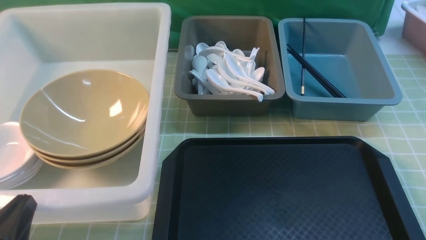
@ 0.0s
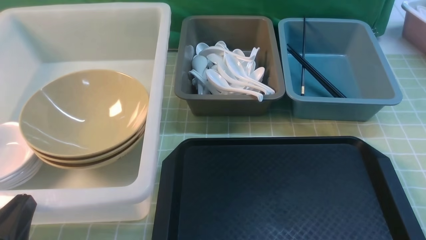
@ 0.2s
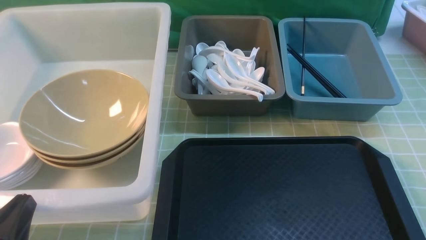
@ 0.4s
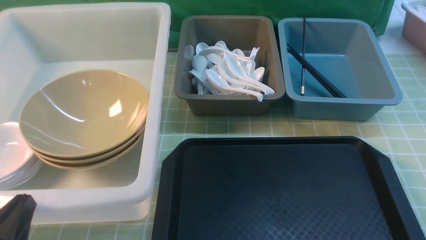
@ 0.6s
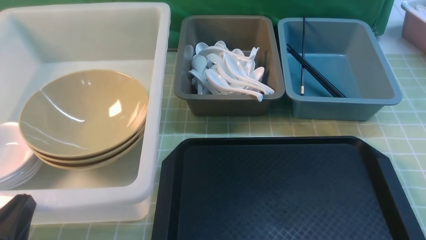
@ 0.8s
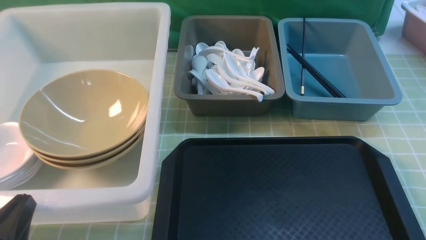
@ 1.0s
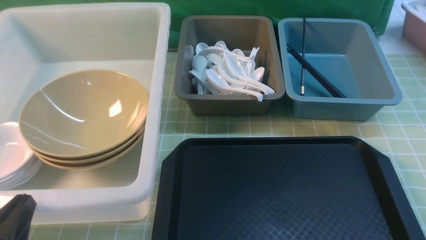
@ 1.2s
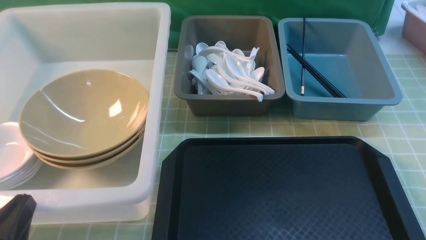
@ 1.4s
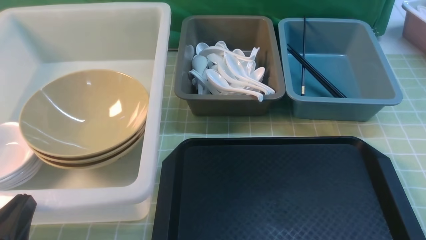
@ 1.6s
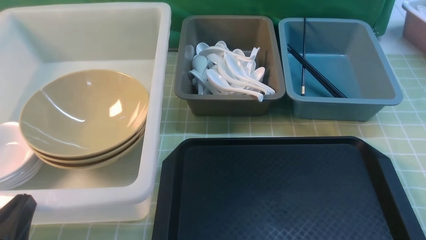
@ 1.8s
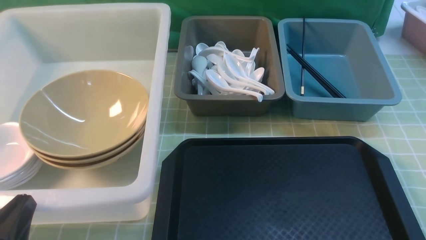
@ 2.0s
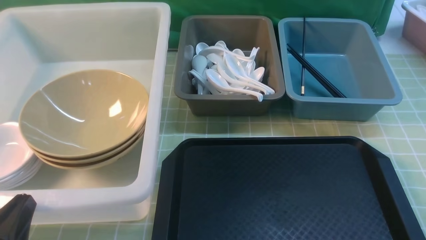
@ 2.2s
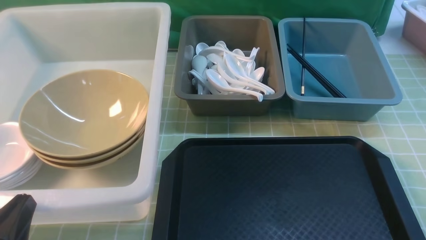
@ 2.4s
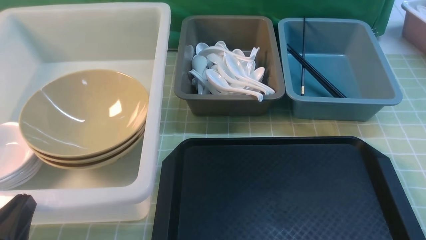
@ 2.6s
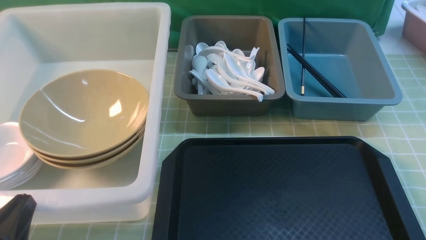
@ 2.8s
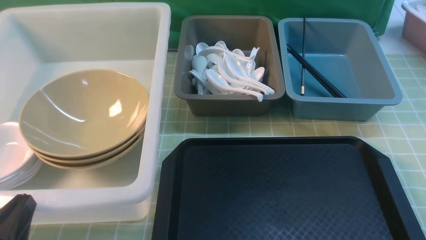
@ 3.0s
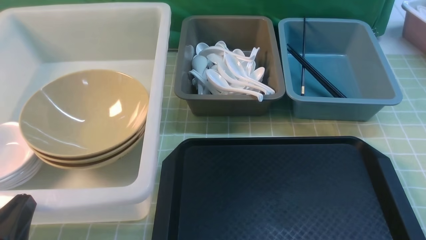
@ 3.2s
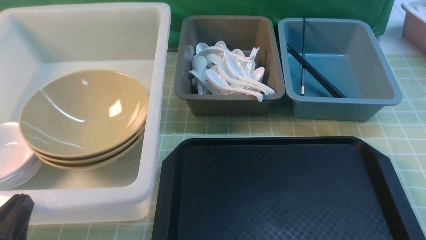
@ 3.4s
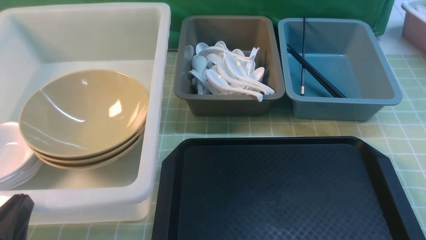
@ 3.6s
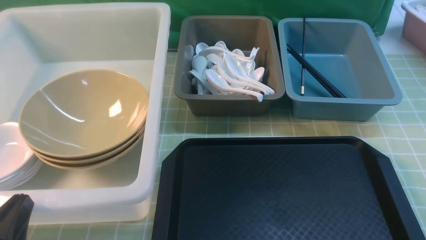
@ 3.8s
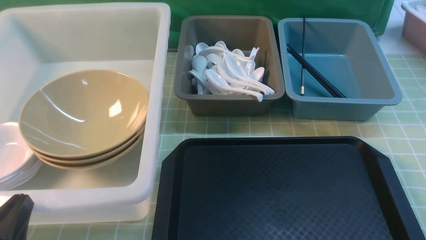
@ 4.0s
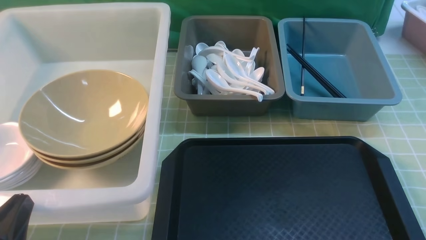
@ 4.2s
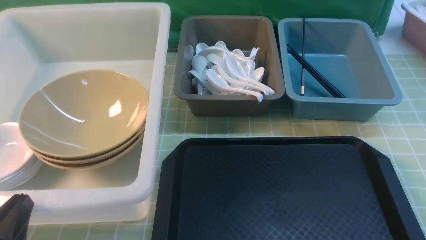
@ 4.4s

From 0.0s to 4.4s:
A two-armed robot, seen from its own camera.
Task of the whole recording: on green table put chopsticks spoon bowls plates into blue grey white boxes.
From 3.0s to 4.4s: Both grippers stay put.

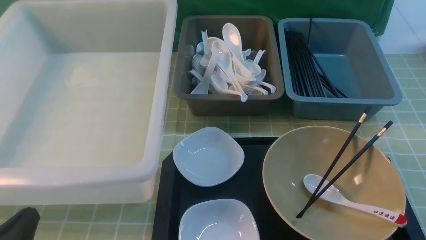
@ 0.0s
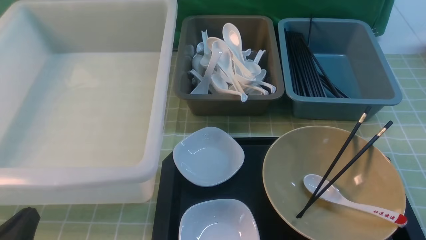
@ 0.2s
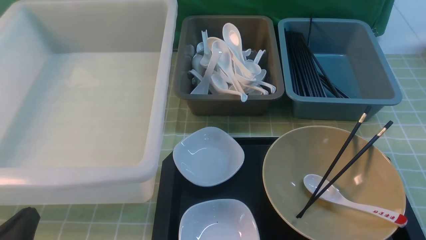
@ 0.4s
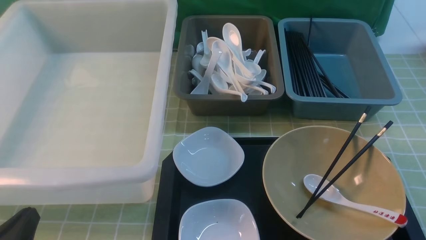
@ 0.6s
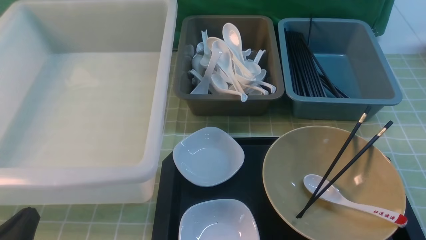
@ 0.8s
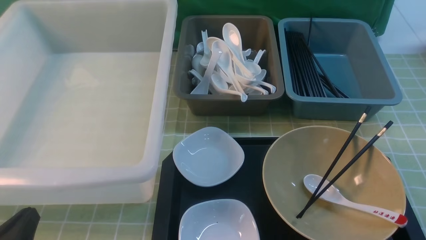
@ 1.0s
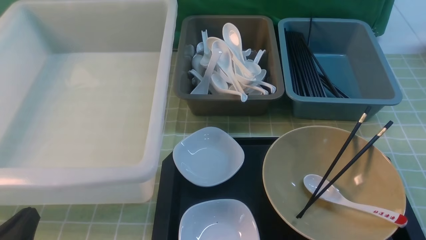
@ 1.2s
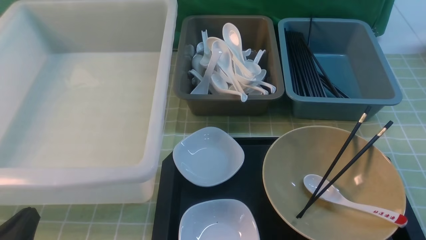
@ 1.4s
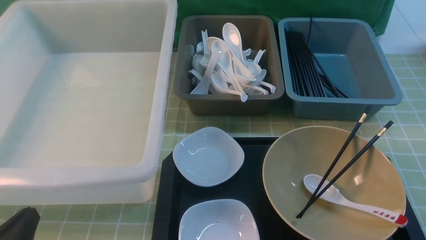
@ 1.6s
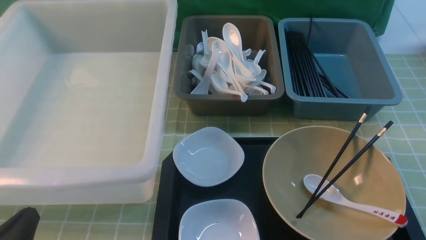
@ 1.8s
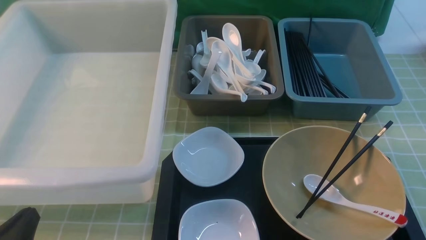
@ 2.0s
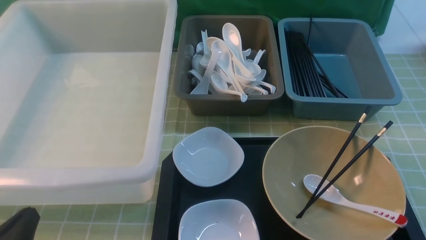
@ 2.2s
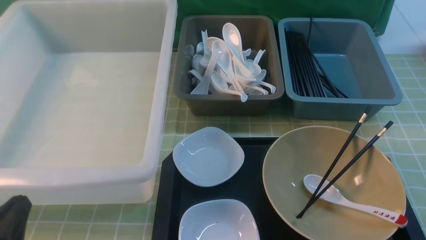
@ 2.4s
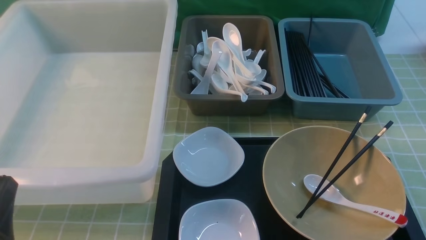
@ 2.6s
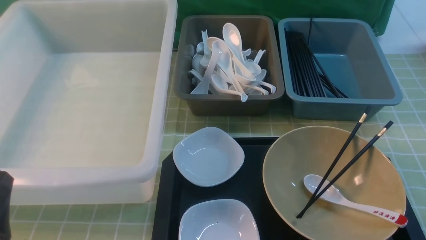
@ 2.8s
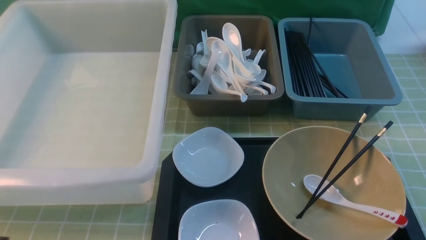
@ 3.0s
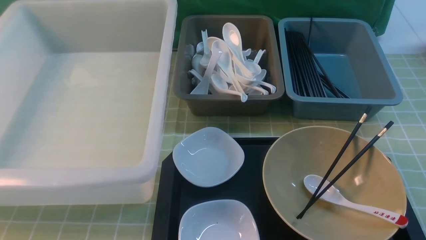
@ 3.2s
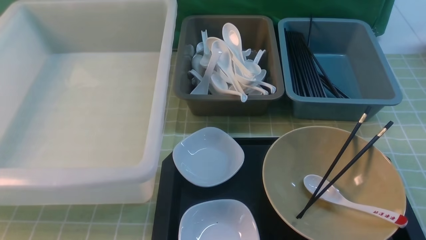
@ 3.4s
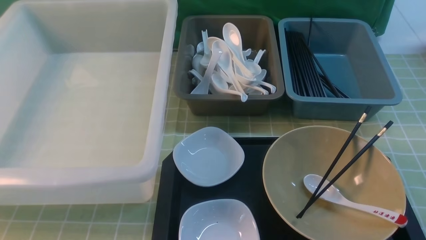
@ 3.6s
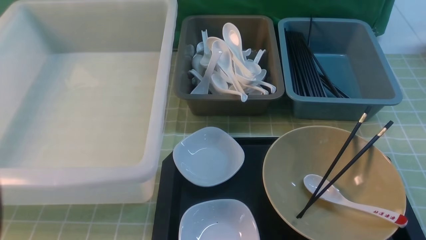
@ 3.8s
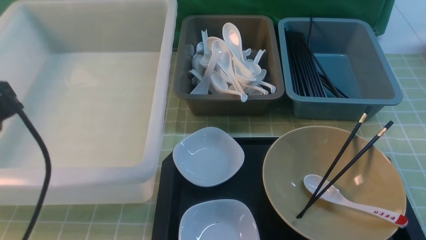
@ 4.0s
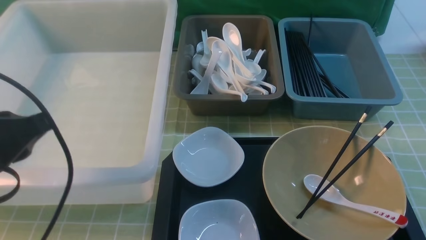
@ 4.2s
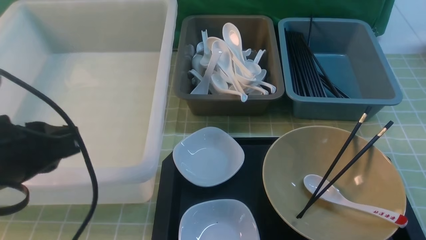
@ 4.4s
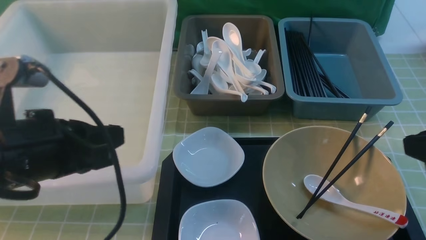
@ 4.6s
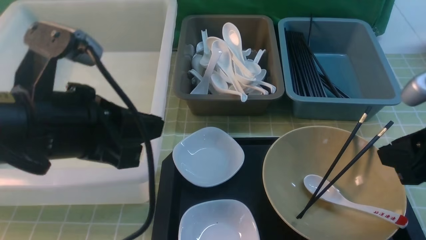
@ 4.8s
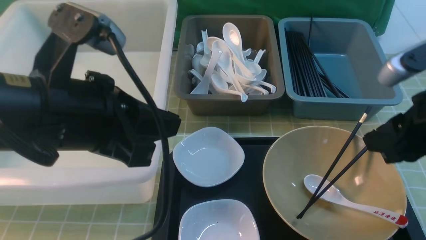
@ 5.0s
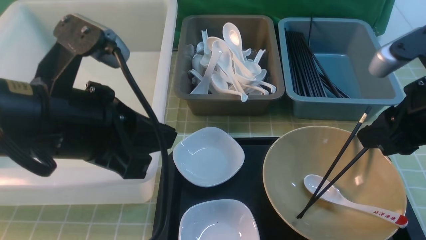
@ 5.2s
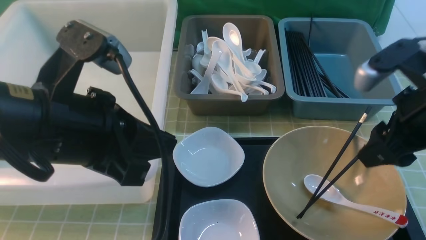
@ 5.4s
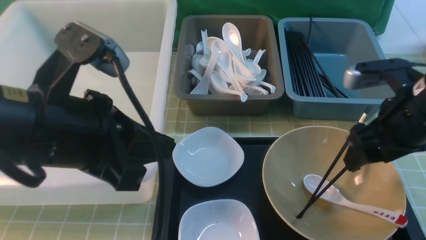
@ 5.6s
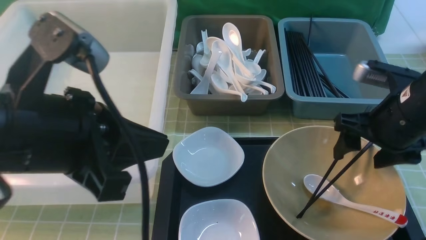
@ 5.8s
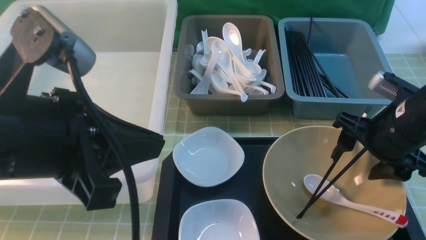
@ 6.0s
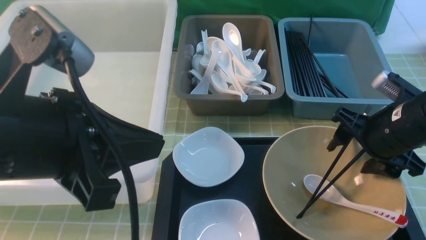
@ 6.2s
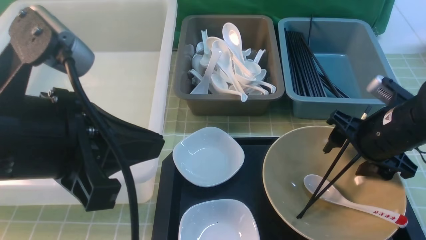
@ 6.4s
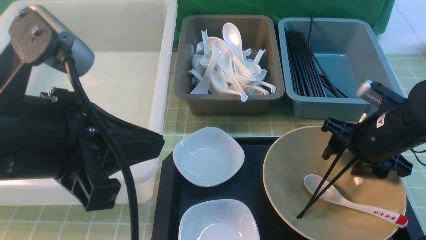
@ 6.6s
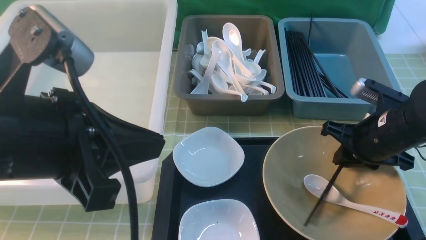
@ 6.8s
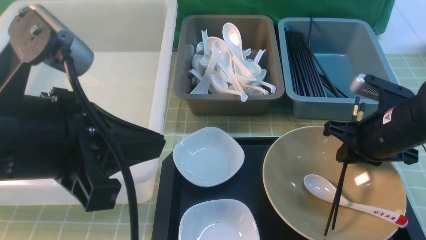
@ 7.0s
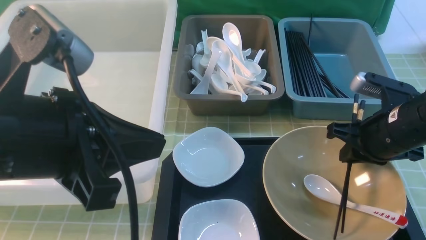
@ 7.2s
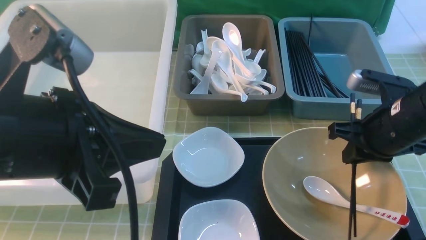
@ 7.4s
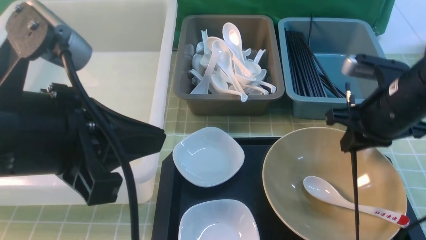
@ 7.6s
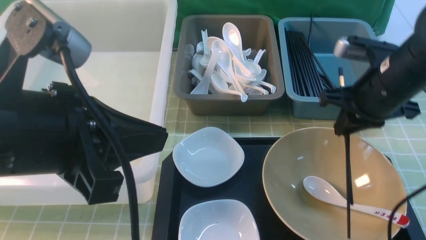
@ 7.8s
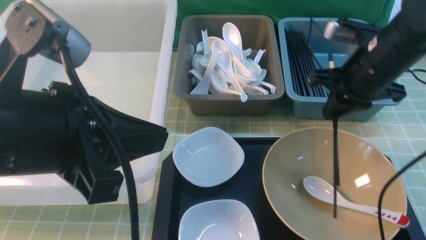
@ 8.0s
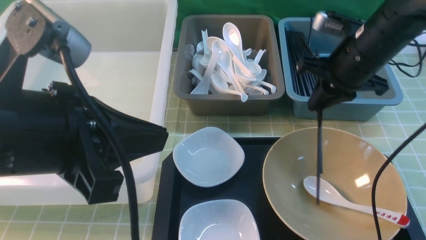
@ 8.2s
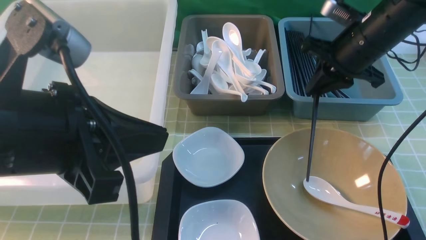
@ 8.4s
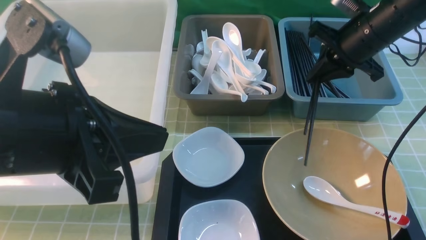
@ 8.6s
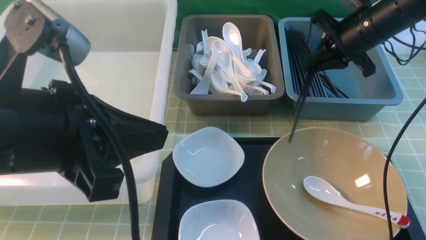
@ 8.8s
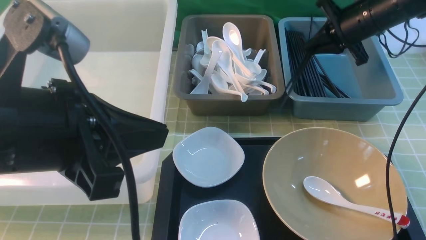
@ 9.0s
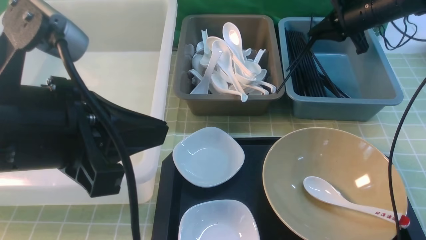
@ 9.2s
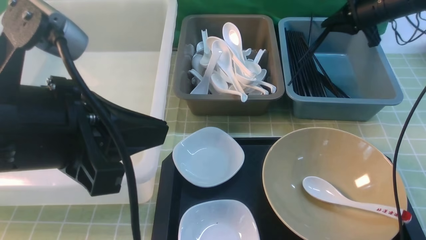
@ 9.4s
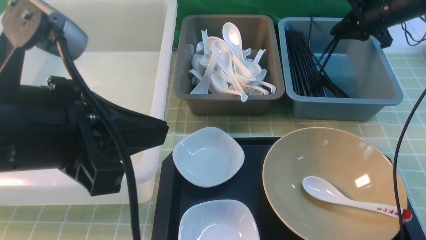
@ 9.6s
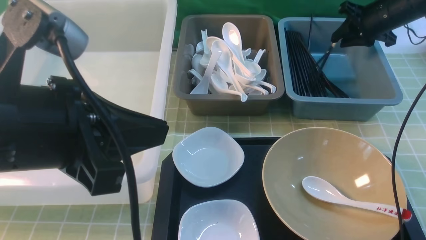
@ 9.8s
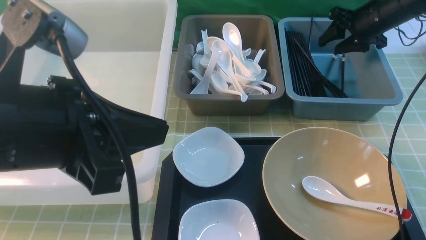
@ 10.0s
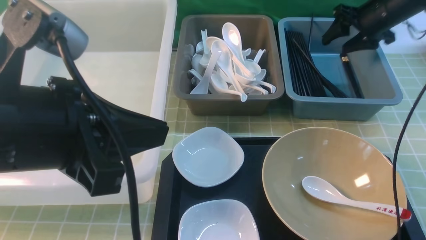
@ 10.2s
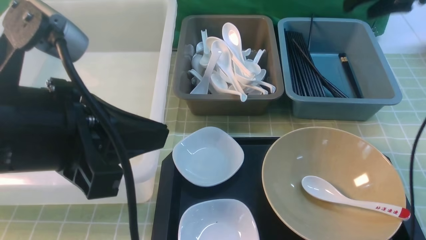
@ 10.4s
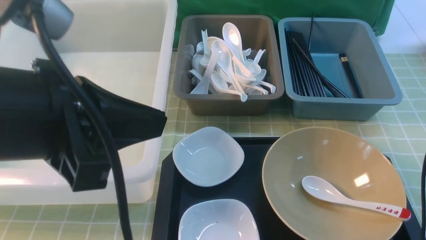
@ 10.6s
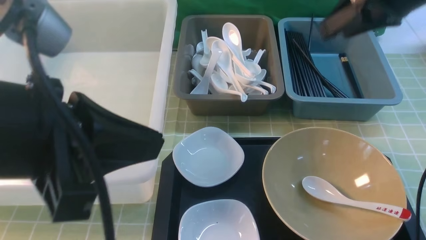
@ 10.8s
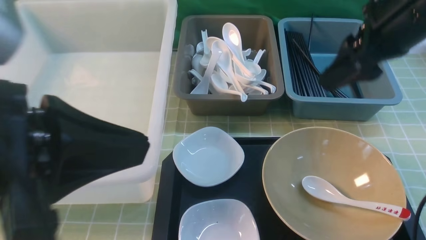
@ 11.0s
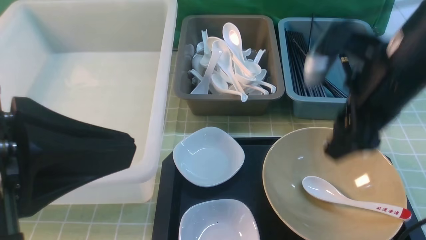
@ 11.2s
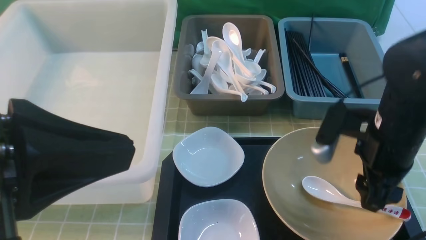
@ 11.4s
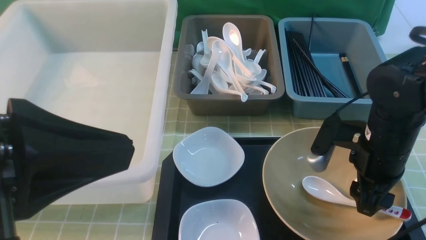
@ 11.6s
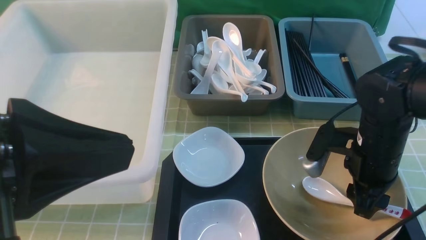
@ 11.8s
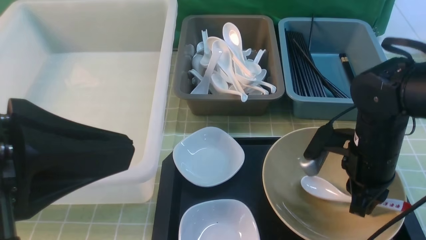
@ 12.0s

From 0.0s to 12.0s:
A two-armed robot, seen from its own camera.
Task of the whole recording: on green table put chopsticks spoon bowls plates into blue grey white boxes.
Step, from 0.0s to 7.4s: use the right arm to grab the chopsticks.
Step, from 7.6s to 10.0s: use the right arm to put the chopsticks into the small storage box on the right.
From 0.0s to 1.6s: Both grippers stay put.
From 1.6s to 3.0s: The left gripper goes roughly 5 cm upward.
From 3.0s to 4.4s: The left gripper goes approximately 15 cm forward and upward.
From 4.4s to 6.0s: The left gripper goes roughly 10 cm to the right and upward; the right gripper travels forward, downward and to the left by approximately 20 cm, and opens up.
From 6.0s to 7.6s: The right gripper closes up.
From 7.6s to 9.0s: The right gripper heads forward, covering about 20 cm.
From 9.0s to 10.4s: The right gripper heads upward, covering some 10 cm, and opens.
From 10.4s to 12.0s: The right gripper heads backward, downward and to the left, covering some 25 cm, and closes; the left gripper goes about 5 cm backward.
